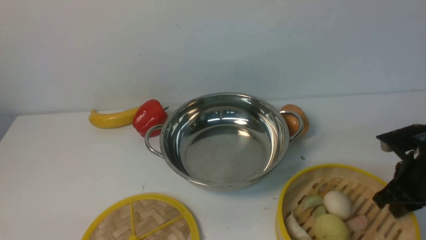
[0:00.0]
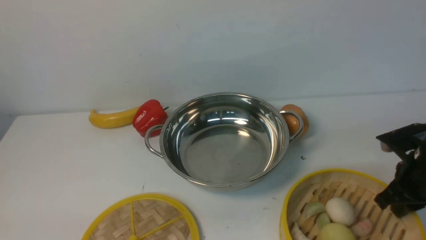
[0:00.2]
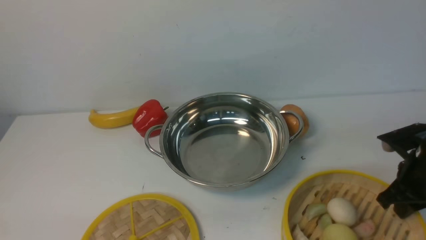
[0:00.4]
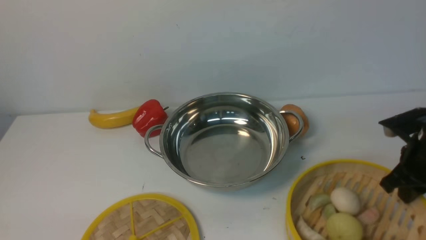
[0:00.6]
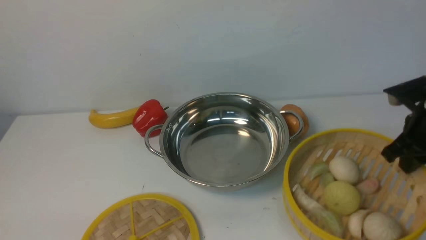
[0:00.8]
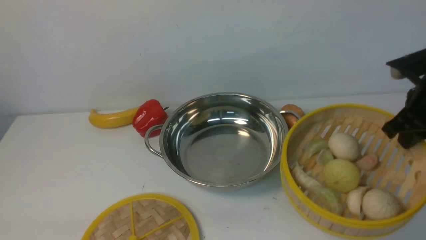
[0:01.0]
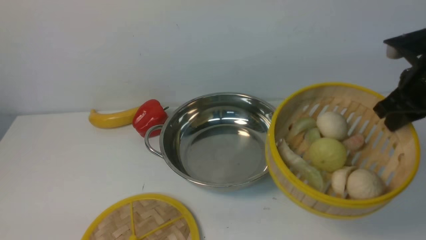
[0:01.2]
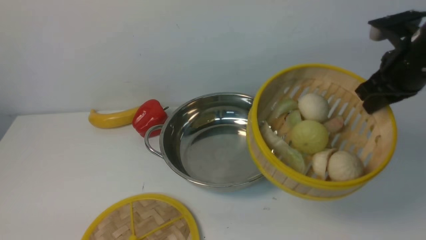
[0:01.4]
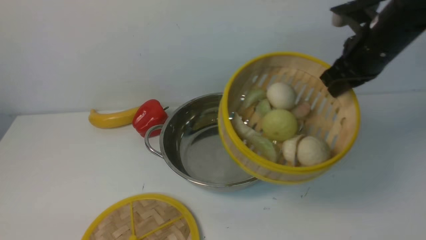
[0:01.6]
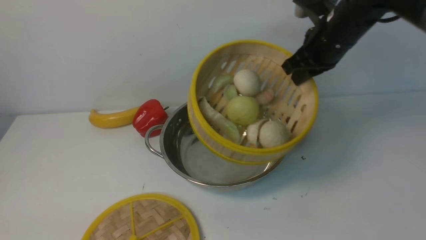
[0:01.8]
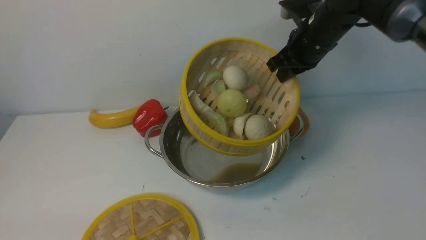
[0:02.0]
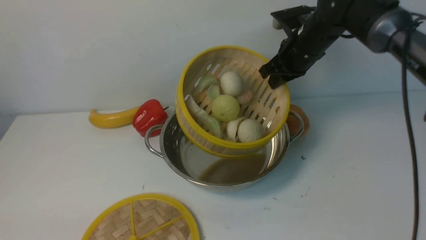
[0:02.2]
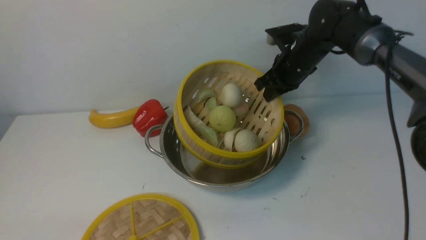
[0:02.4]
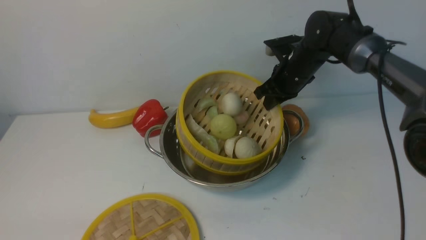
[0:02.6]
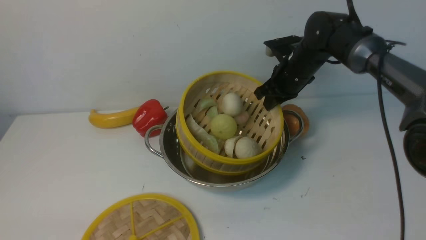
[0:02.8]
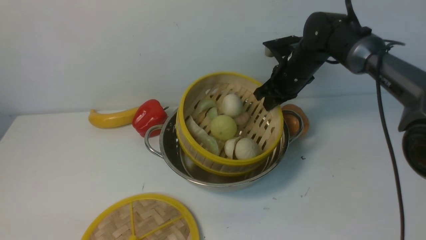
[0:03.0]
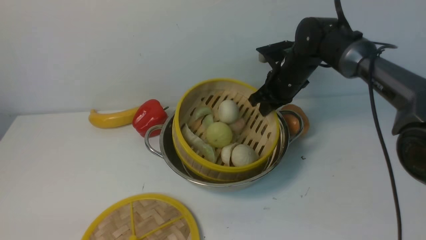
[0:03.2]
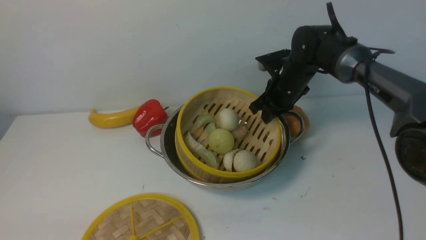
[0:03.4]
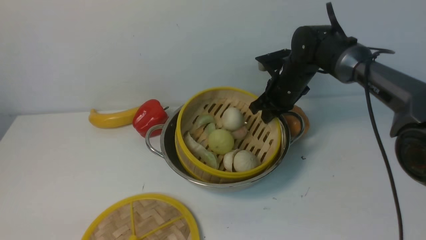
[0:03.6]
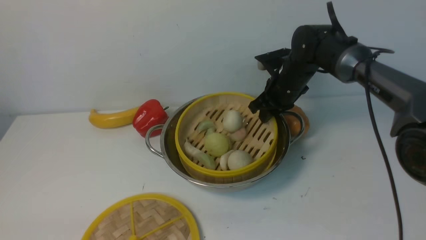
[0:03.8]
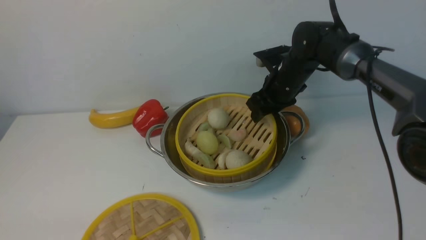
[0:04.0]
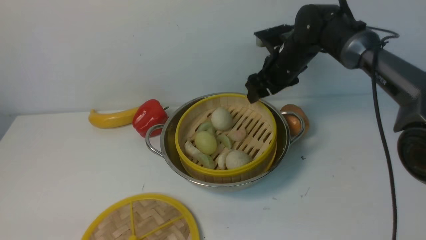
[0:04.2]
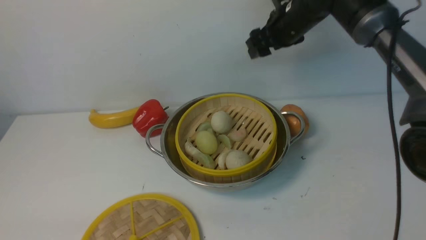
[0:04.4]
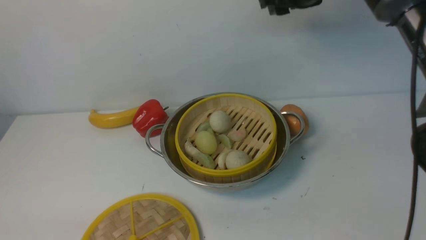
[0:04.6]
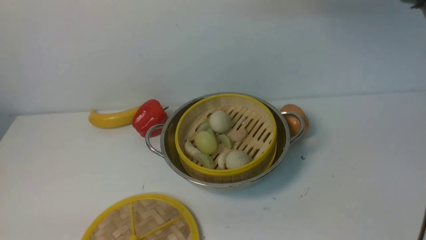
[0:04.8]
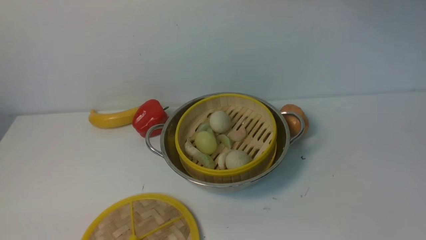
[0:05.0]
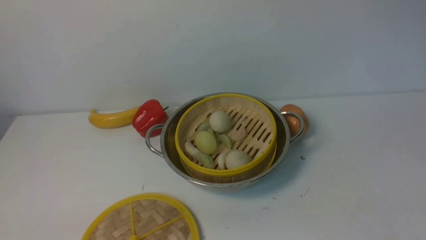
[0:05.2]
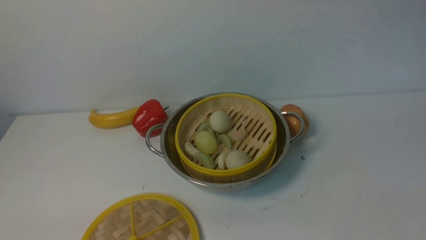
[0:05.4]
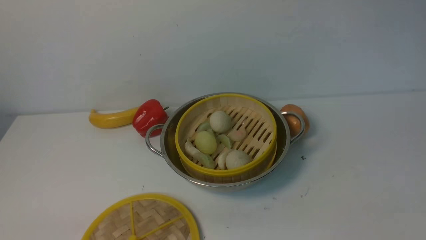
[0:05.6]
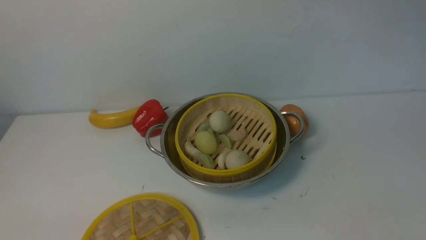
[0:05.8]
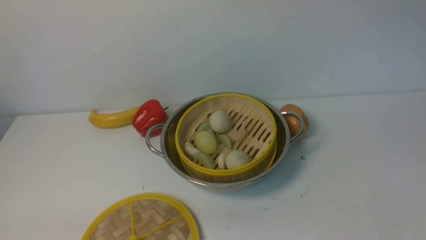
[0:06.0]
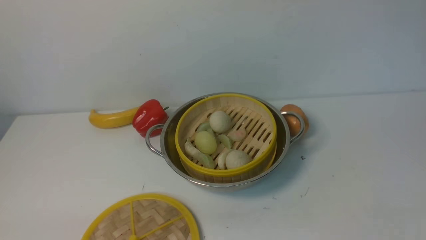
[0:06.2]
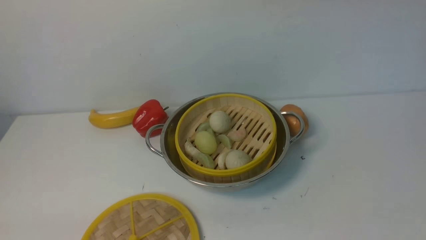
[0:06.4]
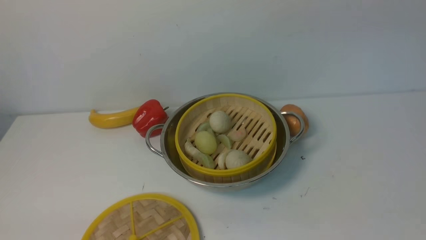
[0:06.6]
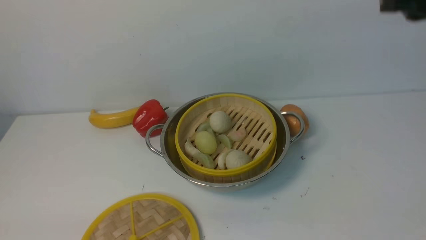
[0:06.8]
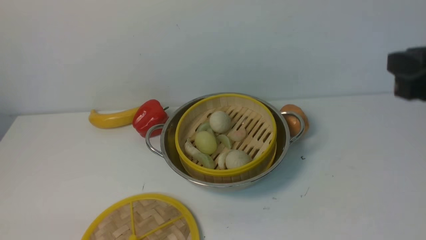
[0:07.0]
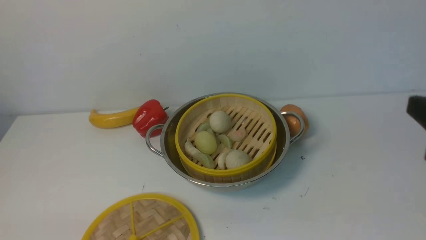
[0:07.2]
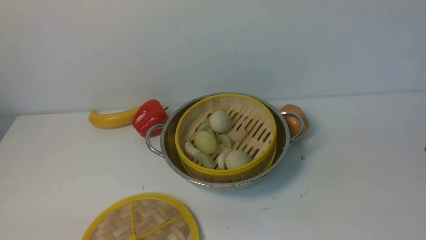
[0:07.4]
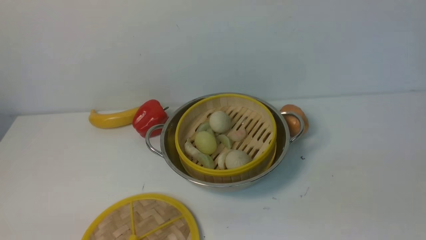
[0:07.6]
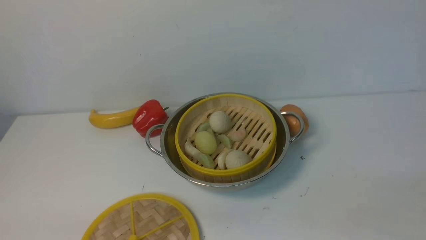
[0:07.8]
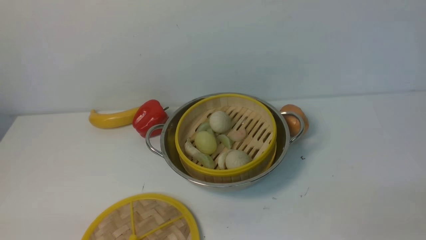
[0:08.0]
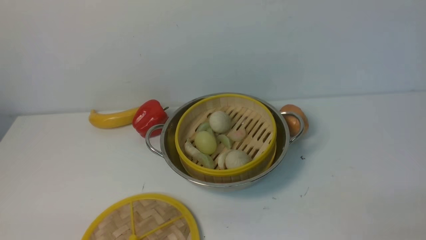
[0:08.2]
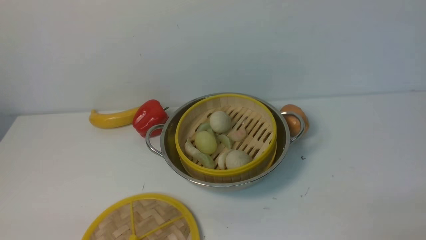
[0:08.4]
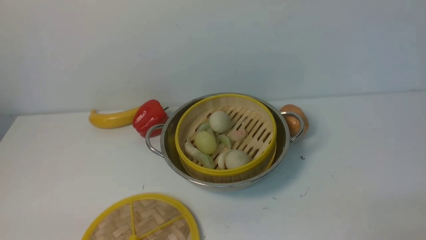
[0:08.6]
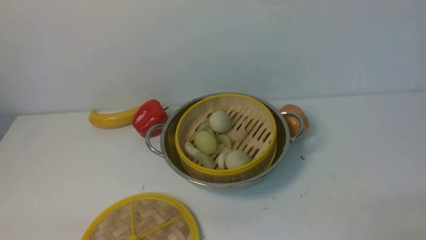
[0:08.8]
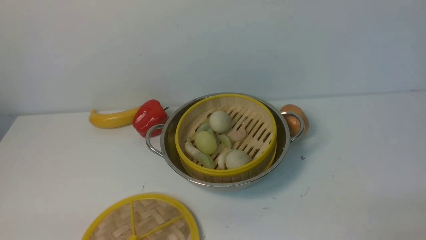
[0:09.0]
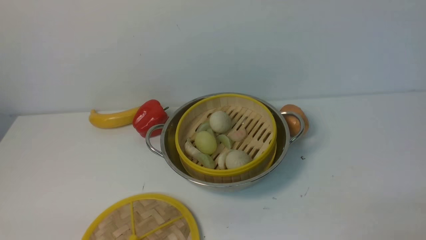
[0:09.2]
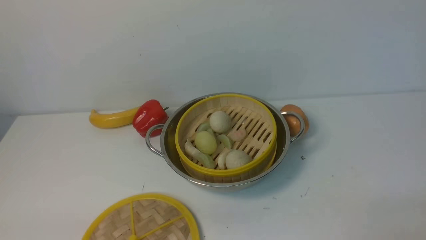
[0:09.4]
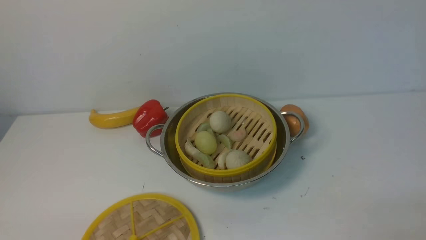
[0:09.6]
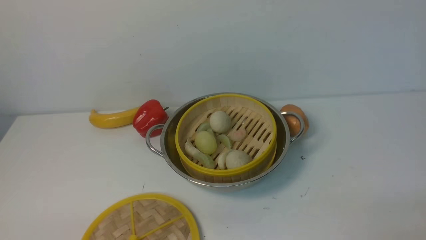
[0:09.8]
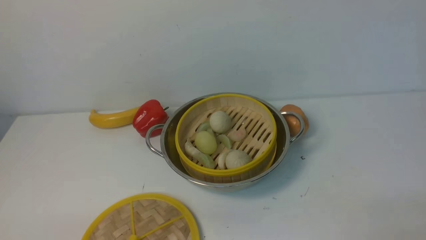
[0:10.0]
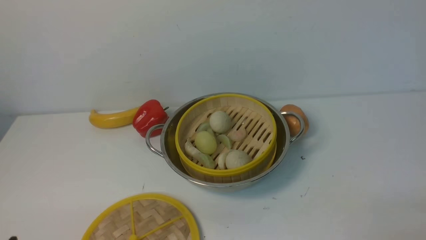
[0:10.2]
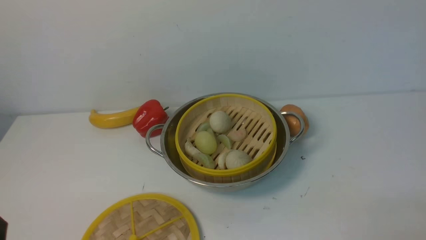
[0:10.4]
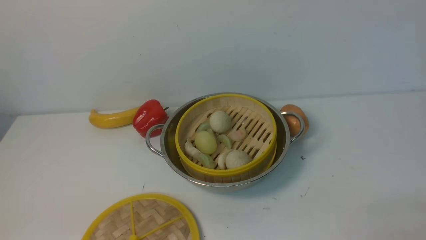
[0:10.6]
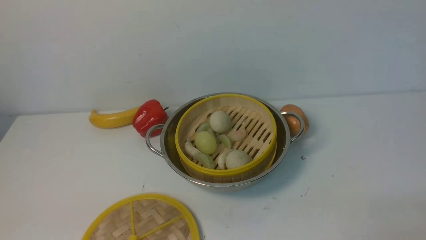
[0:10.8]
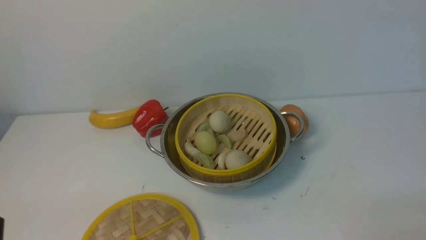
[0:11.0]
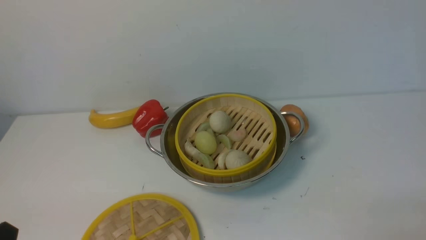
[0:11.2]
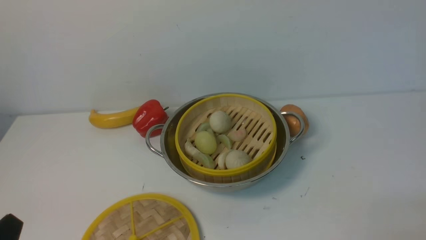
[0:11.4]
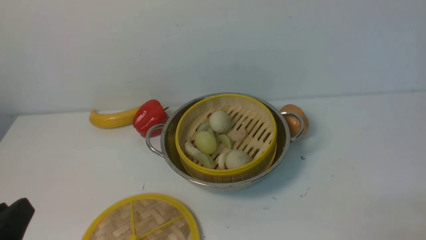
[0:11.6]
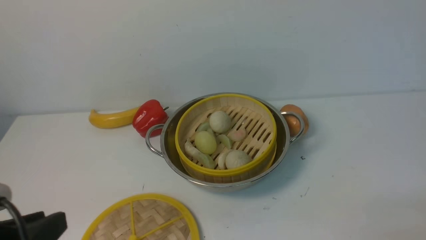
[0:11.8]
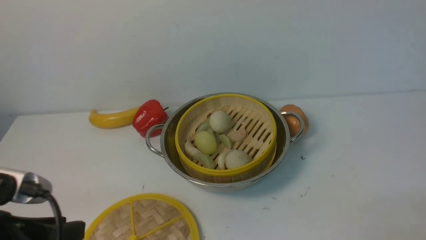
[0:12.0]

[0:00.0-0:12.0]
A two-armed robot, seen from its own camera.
Task of the whole recording: place the steamer in the pot on the white table, and put the lid on the steamer.
Step, 0:01.0 to 0:04.6: use the right arm to put the steamer into the iron steamer pot in the middle.
0:00.0 to 0:01.6: The right gripper shifts roughly 20 cm upward, forward and to the left.
0:01.6 to 0:03.0: The right gripper travels downward, forward and to the left by approximately 15 cm.
0:03.0 to 0:04.4: The right gripper goes some 10 cm upward, and opens up.
0:04.4 to 0:06.0: The right gripper shifts about 20 cm upward and backward, and closes its fingers.
0:10.4 to 0:12.0: The left gripper heads upward and forward, covering some 10 cm.

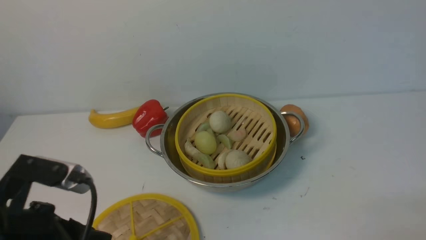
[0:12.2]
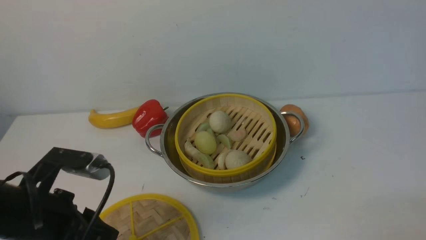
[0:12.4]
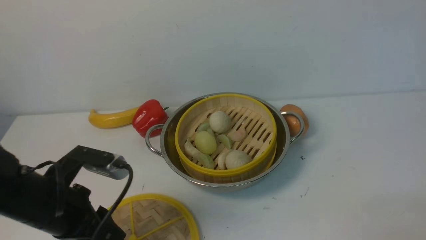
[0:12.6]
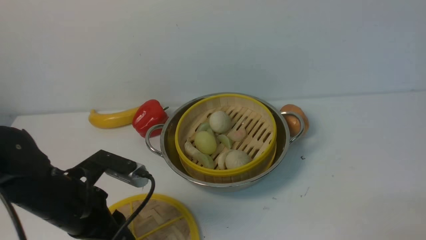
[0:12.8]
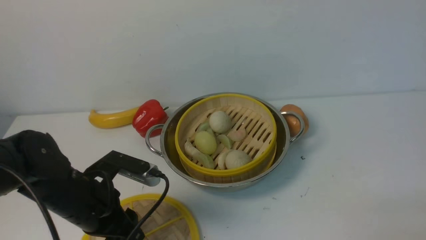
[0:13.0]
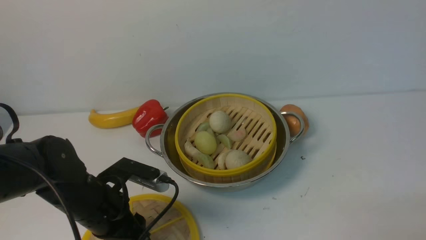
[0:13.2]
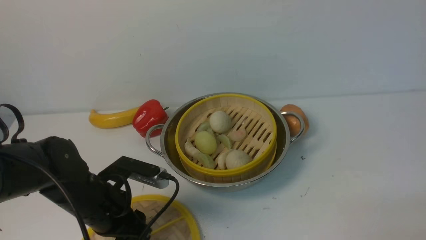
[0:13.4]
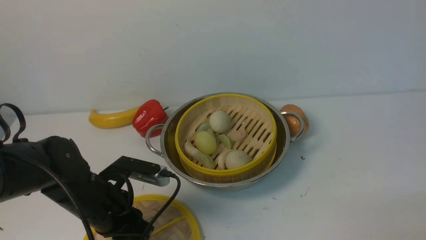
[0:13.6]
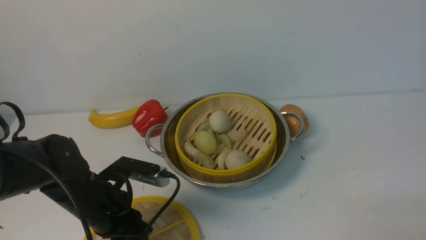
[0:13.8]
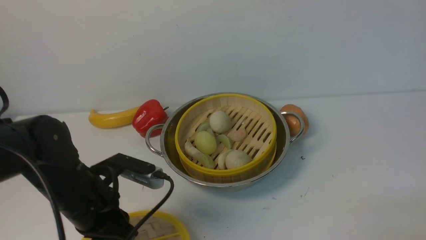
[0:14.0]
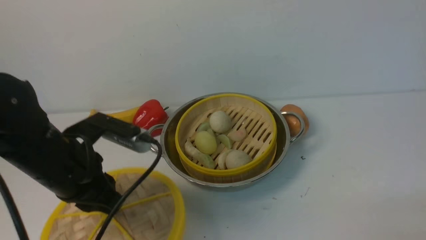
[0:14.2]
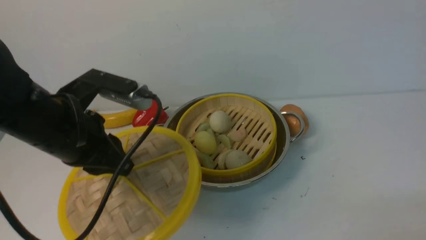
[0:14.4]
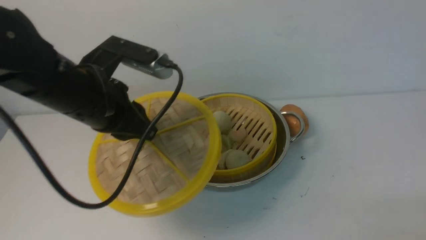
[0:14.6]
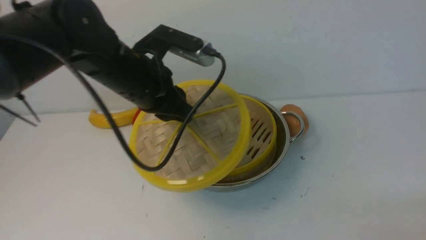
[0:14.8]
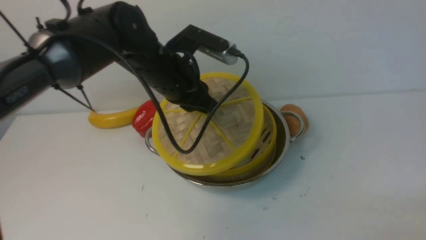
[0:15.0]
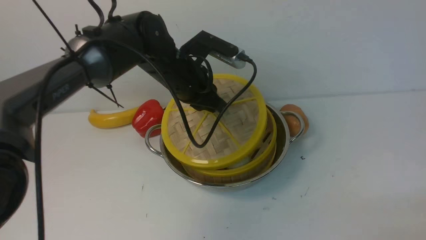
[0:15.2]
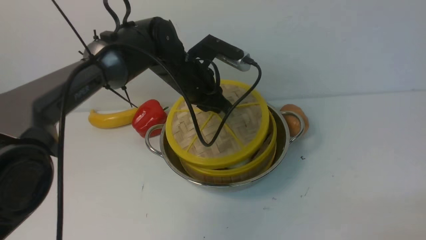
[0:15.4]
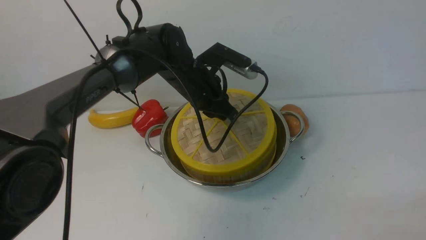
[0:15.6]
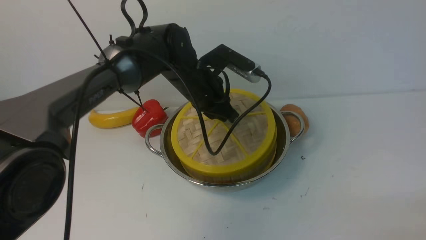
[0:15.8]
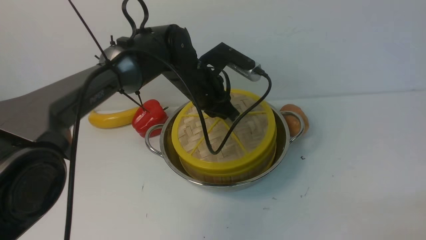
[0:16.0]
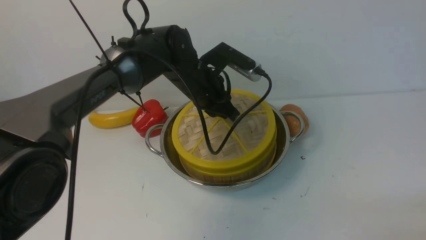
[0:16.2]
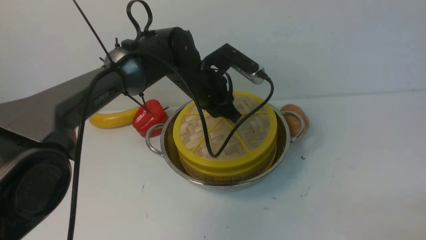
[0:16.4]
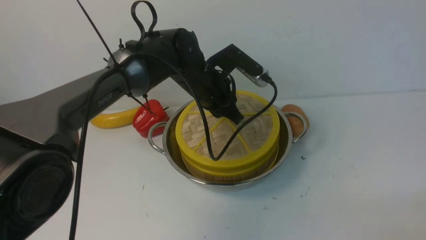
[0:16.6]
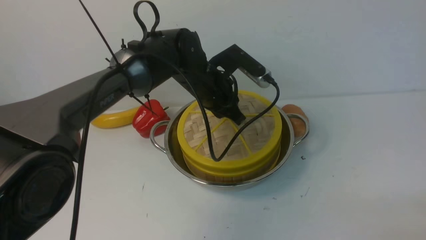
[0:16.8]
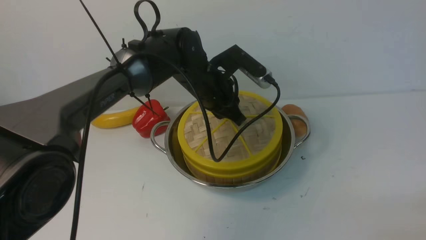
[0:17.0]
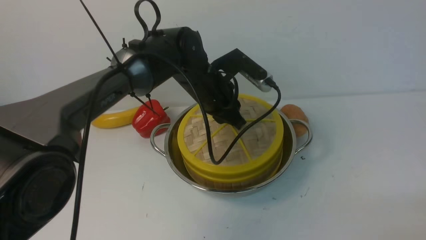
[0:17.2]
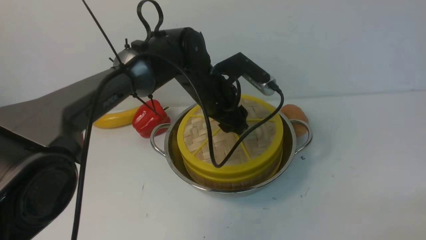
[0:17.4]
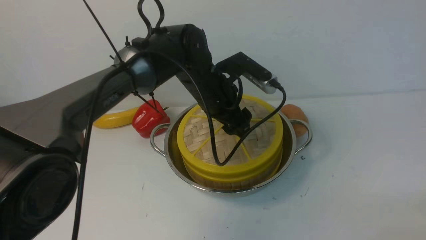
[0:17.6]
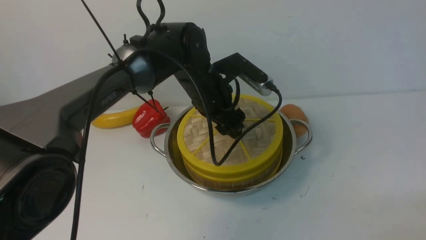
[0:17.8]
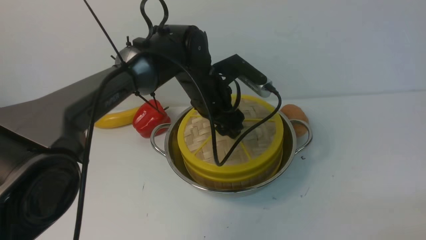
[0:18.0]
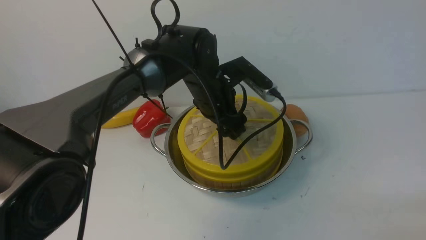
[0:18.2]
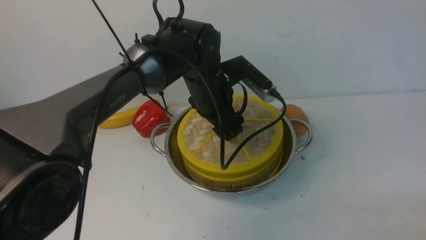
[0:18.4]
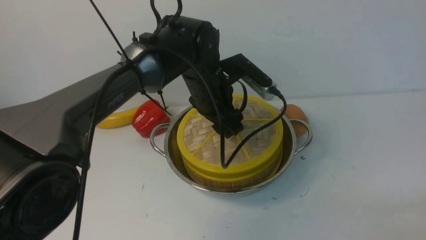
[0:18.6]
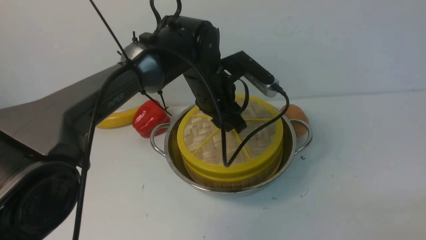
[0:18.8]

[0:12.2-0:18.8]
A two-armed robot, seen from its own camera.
Task of the whole recording: place the steamer in the pot on the white table, and put the lid on the steamer.
Step, 0:12.2 to 0:14.2: use the left arm to lift the lid of the steamer.
0:12.2 to 0:13.8: The left gripper travels forward and downward by some 15 cm, and closes its fingers.
0:13.8 to 0:15.4: The left gripper shifts approximately 20 cm forward and to the right.
0:17.2 to 0:18.8: The left gripper opens and closes again.
